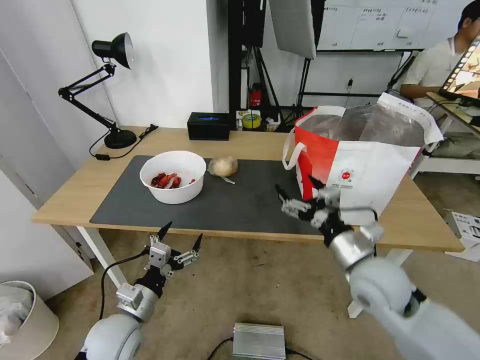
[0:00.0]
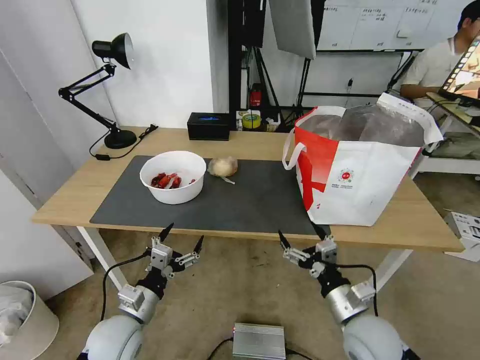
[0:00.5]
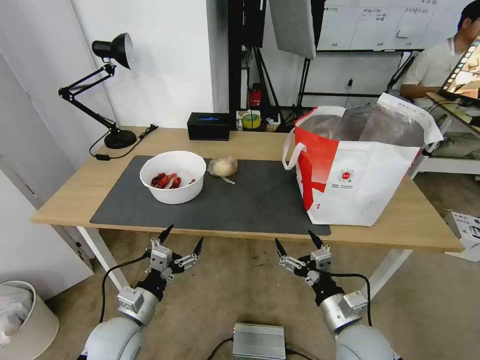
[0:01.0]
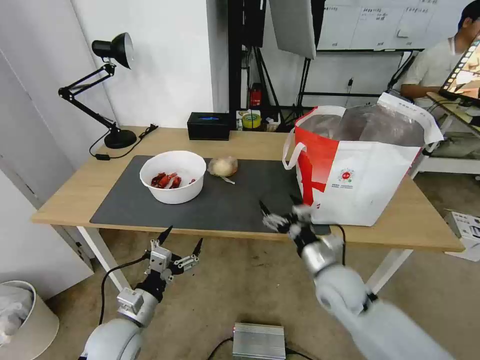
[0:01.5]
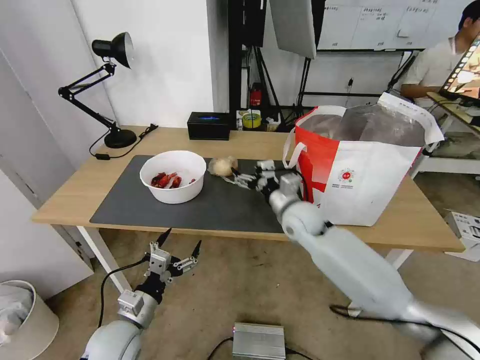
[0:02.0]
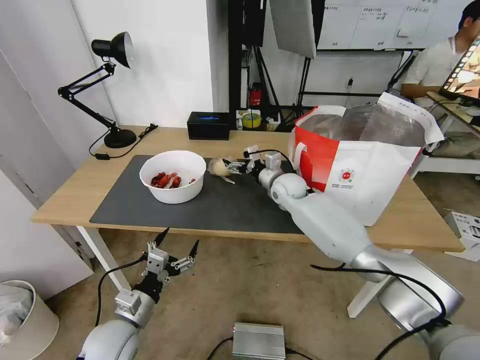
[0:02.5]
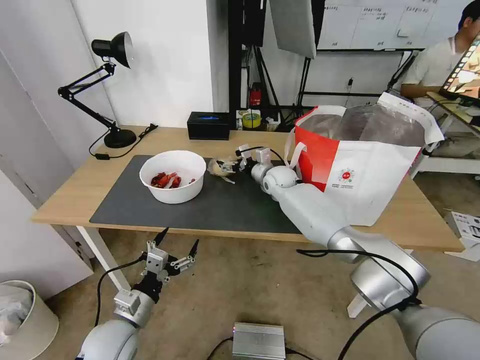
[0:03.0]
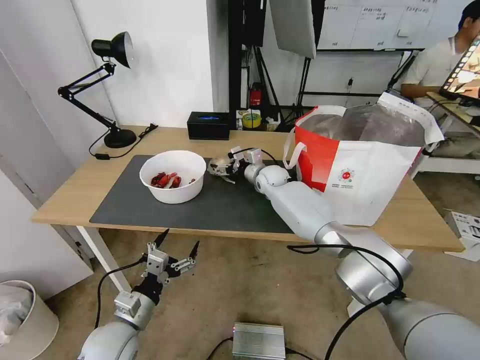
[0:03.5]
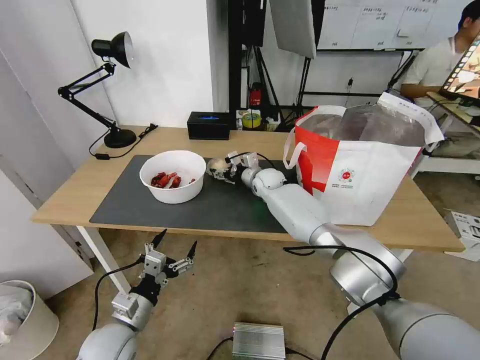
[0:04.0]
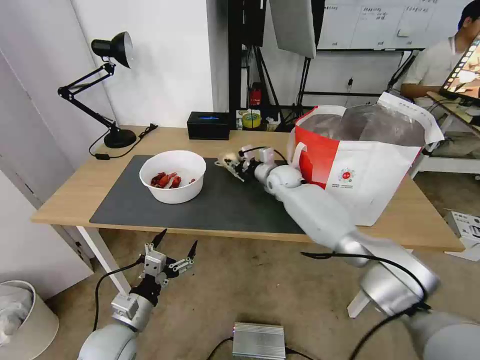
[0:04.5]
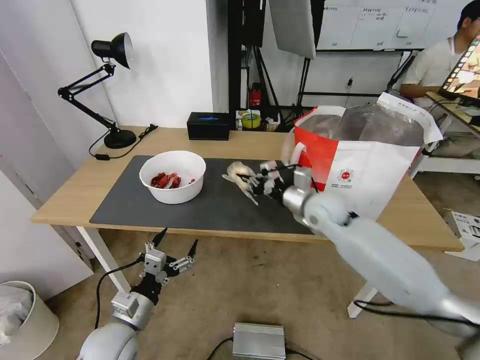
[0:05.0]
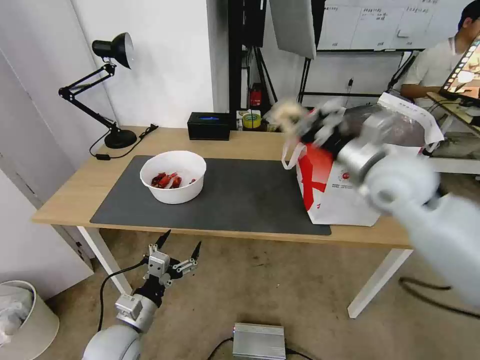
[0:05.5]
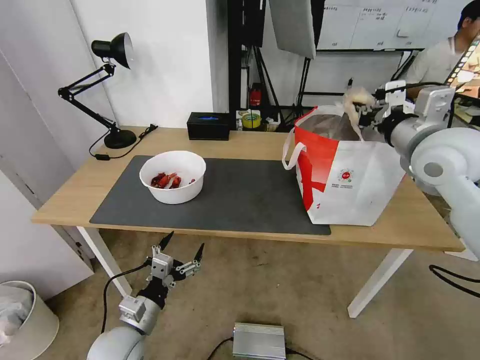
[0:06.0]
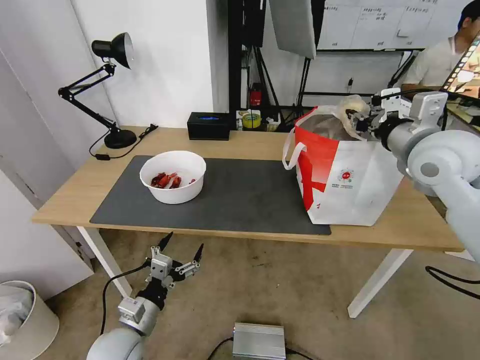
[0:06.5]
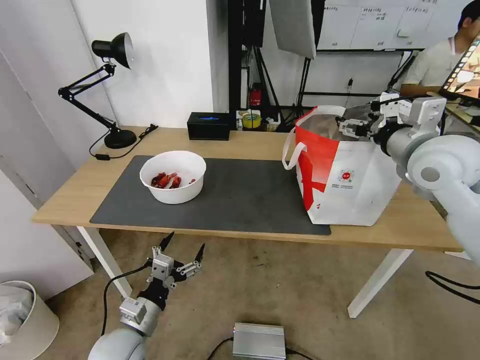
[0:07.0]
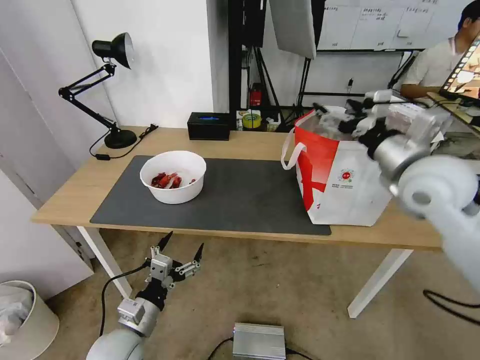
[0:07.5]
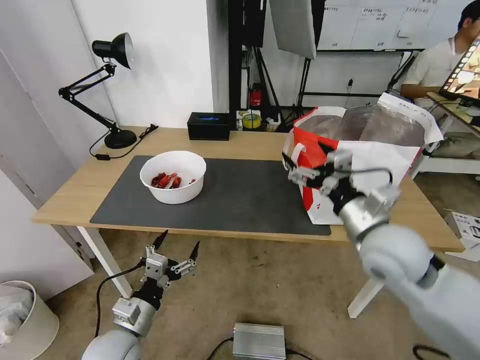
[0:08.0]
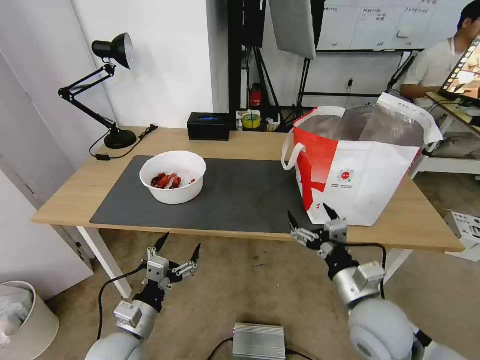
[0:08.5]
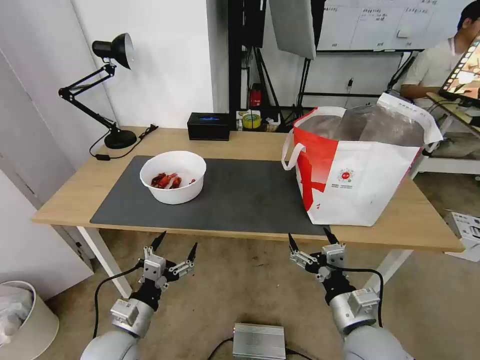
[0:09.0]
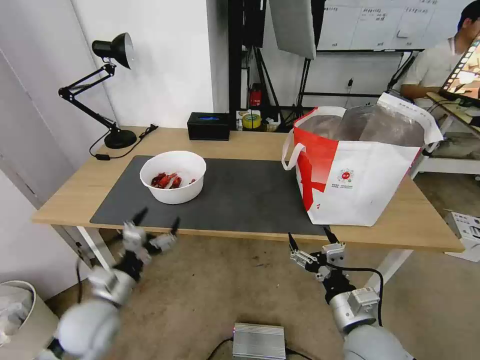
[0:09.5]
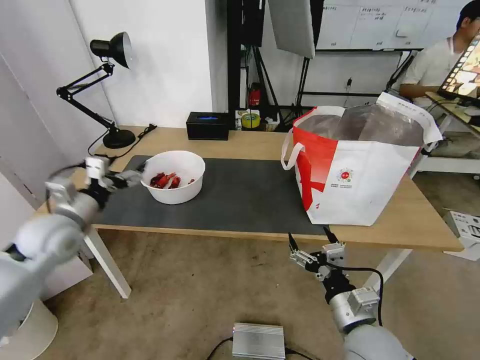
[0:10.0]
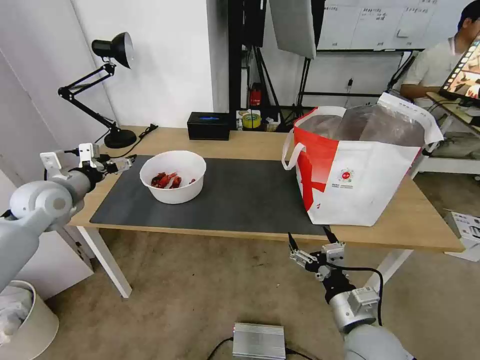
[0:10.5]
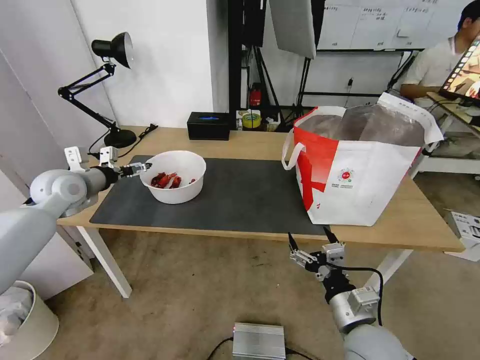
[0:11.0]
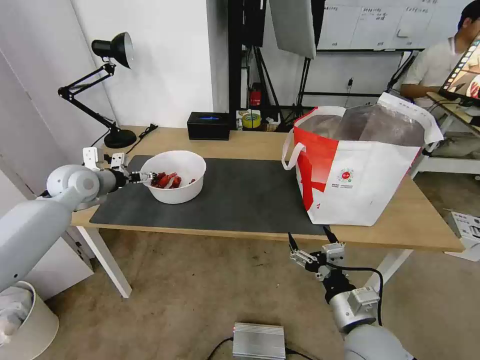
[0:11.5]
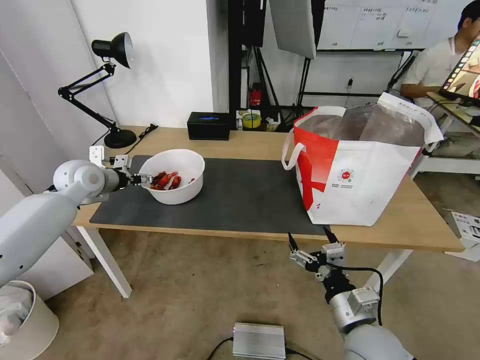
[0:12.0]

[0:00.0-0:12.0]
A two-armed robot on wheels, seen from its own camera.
Task of the whole recording: Pick up the trash from the table and place it into the takeout bag.
0:00.0 to 0:02.0: The right gripper moves forward and to the left, some 20 cm.
0:02.0 to 0:04.0: The right gripper is displaced forward by roughly 20 cm.
0:04.0 to 0:06.0: The right gripper is displaced upward, to the right and backward by some 40 cm, and closes.
0:06.0 to 0:08.0: The right gripper travels downward, backward and to the left by about 20 cm, and opens.
0:08.0 to 0:10.0: The right gripper heads downward and backward, covering roughly 20 cm. The left gripper travels forward, upward and to the left by roughly 25 cm.
0:10.0 to 0:12.0: The left gripper shifts about 15 cm forward.

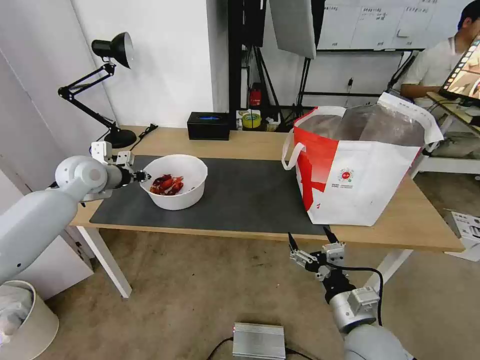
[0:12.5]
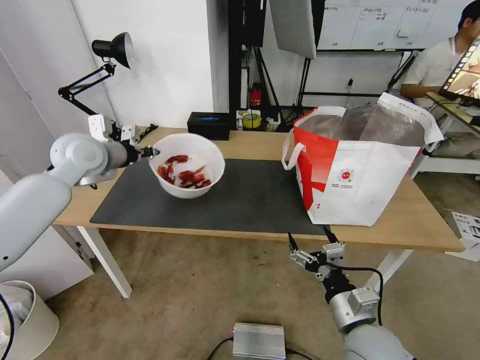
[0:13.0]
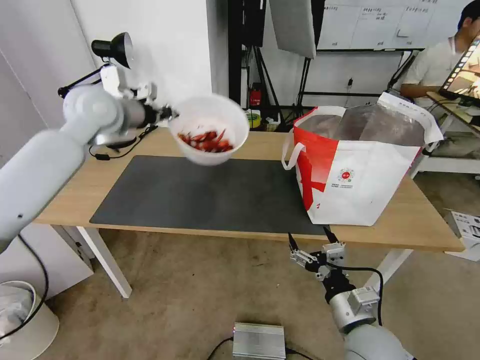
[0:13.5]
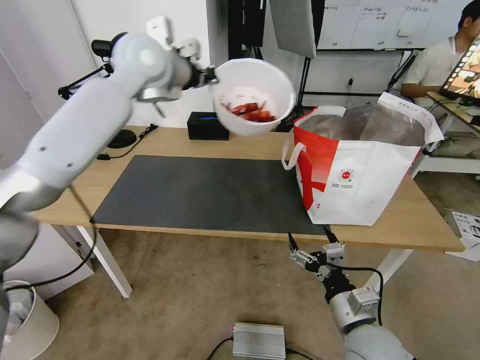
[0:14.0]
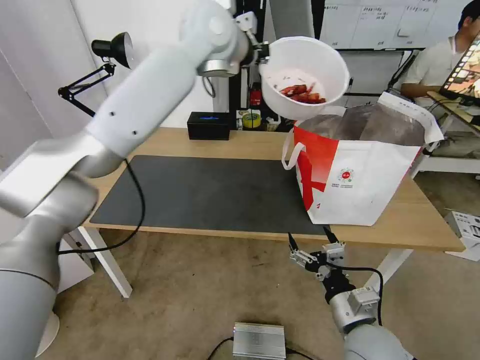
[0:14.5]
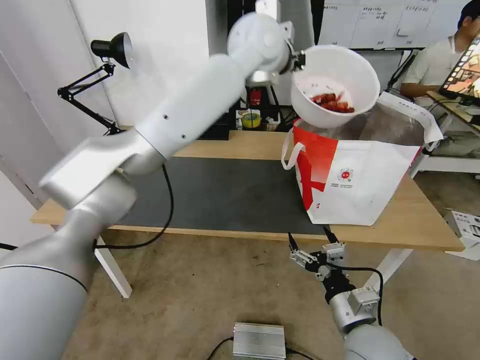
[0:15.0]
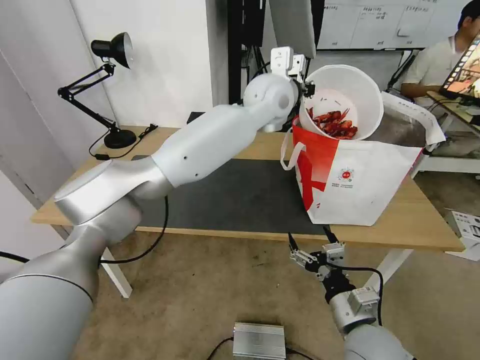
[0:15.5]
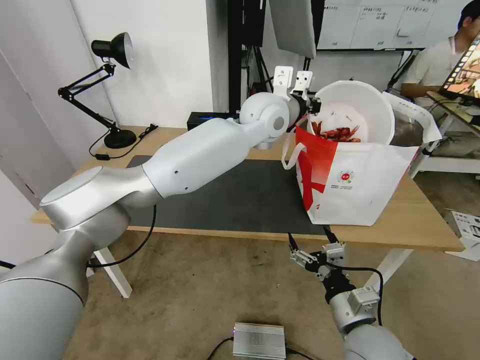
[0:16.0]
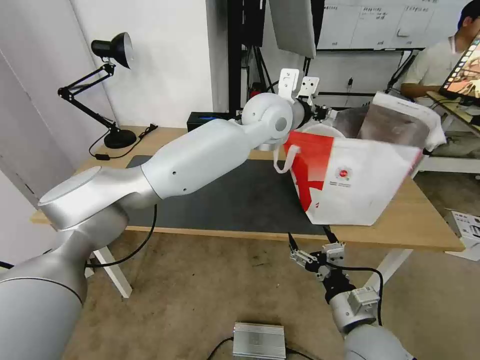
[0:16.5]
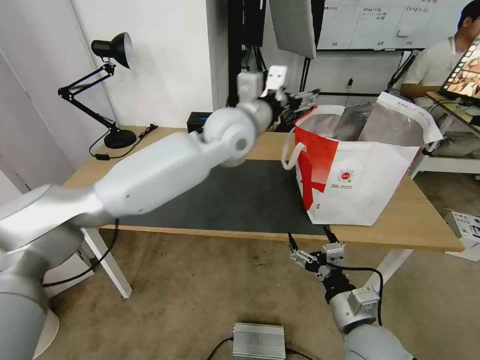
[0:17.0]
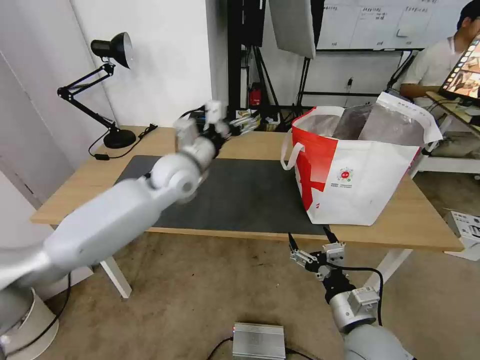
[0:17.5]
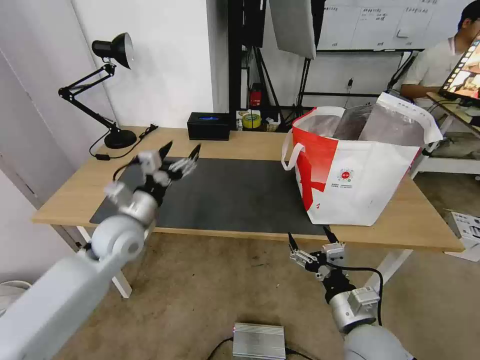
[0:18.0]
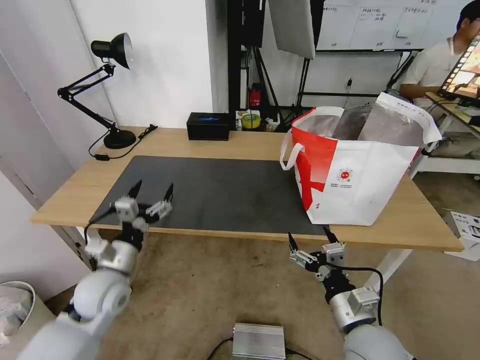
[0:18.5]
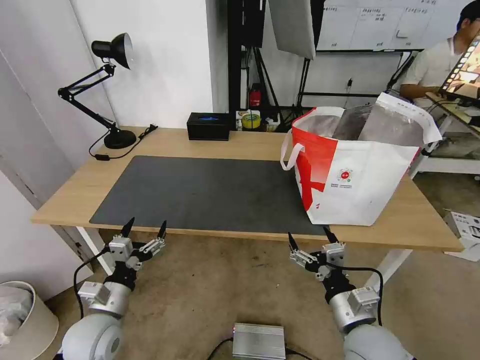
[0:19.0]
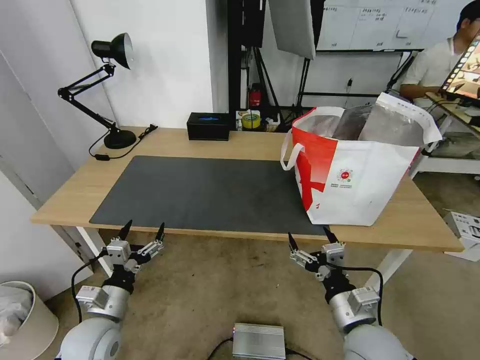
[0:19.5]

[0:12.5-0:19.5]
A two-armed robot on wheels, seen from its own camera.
Task of the whole recording: Pick up the trash from the table and place it into the takeout bag.
0:12.5 to 0:14.5: The left gripper travels to the right and upward by about 40 cm.
0:14.5 to 0:16.0: The left gripper heads downward and to the right, covering about 20 cm.
0:16.0 to 0:17.5: The left gripper moves to the left and downward, some 20 cm, and opens up.
0:17.5 to 0:19.5: The left gripper moves backward, downward and to the left, roughly 35 cm.

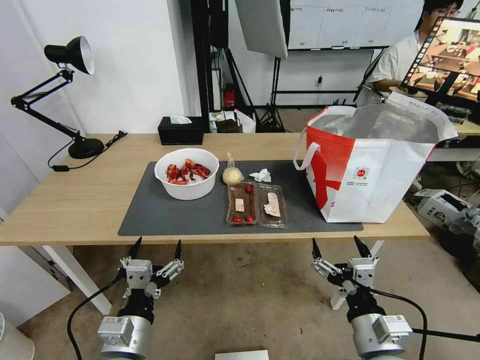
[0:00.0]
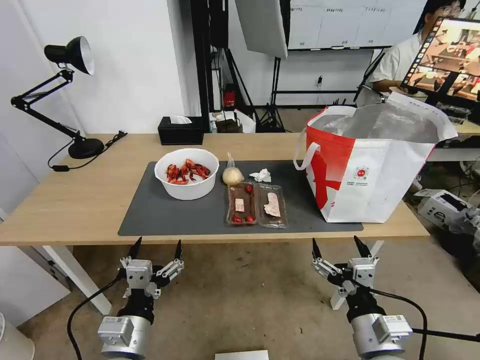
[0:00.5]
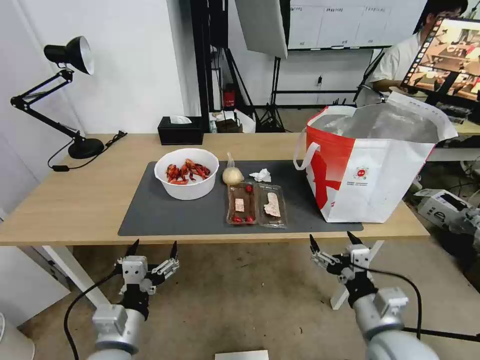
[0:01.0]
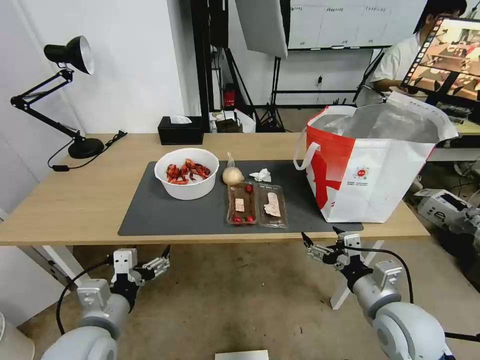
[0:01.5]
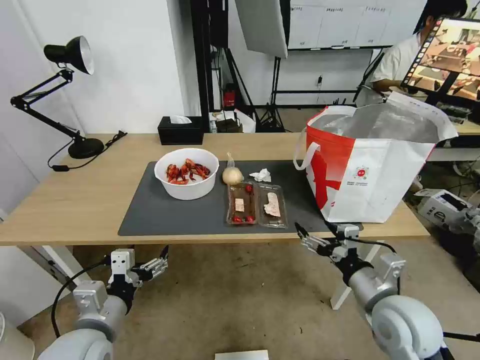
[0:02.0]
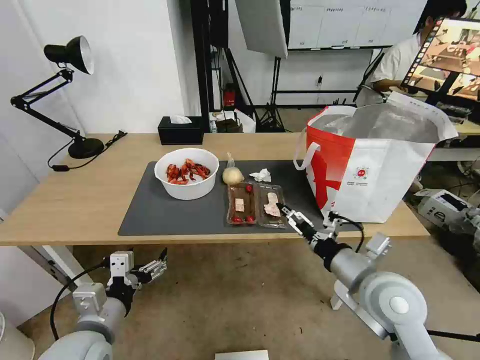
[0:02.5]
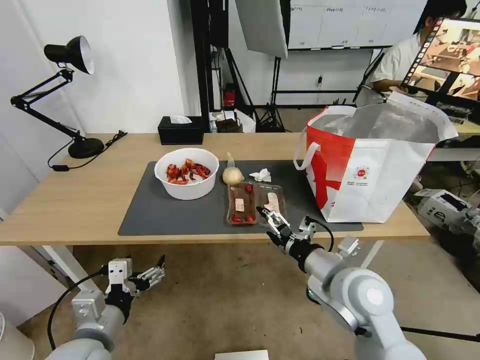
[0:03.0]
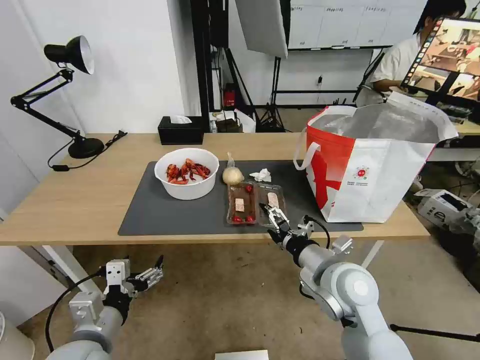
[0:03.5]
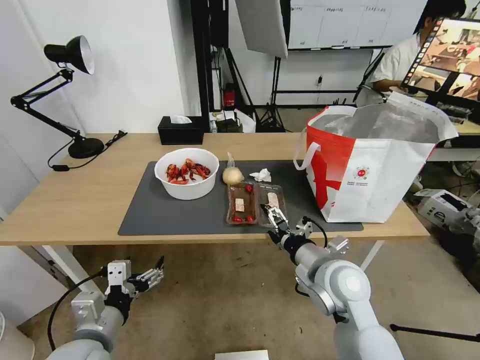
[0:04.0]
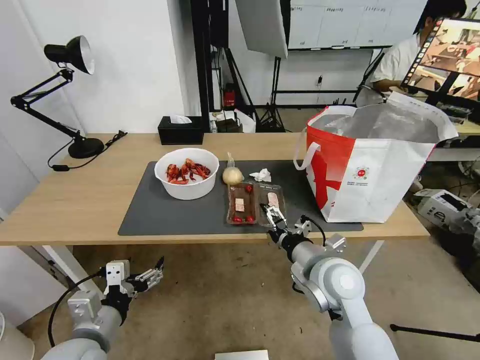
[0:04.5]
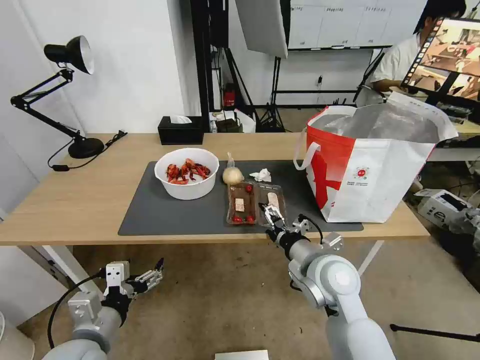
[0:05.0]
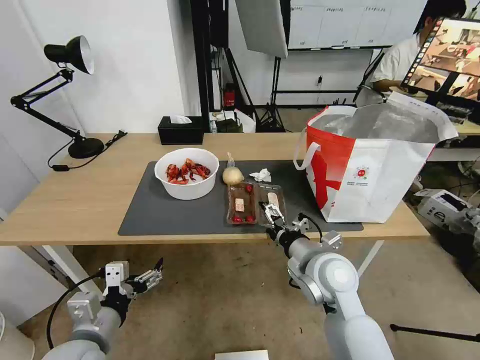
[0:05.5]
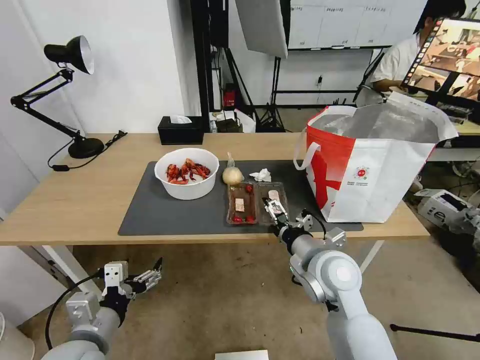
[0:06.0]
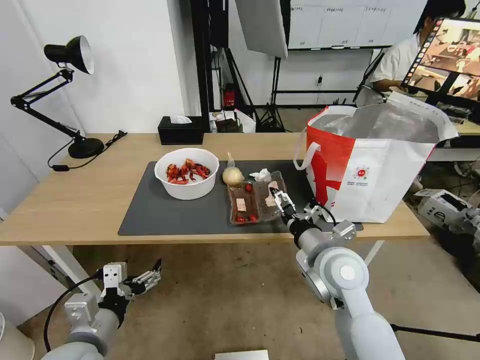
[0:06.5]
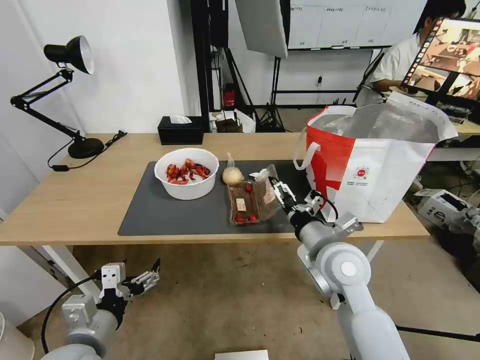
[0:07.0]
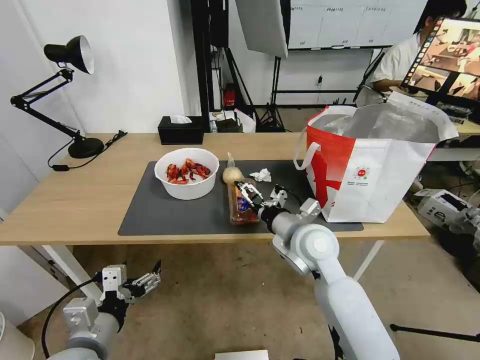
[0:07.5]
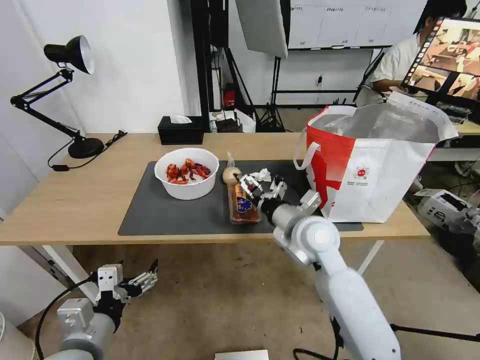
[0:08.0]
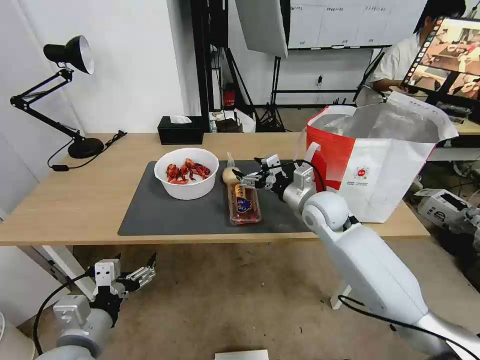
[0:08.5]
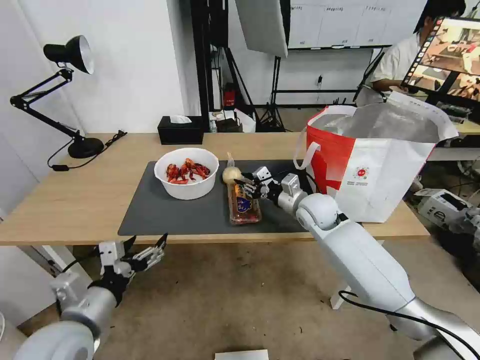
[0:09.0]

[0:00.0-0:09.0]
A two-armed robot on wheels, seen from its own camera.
Task of the whole recording: Pick up the trash from the table and place it into the takeout bag.
0:02.0 to 0:04.5: The right gripper travels to the left and forward by roughly 15 cm.
0:04.5 to 0:07.0: The grippers make only small movements.
0:07.0 to 0:09.0: The right gripper is displaced forward by approximately 15 cm, and closes its fingers.
